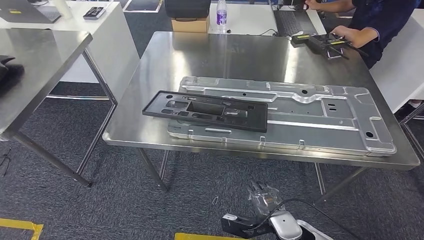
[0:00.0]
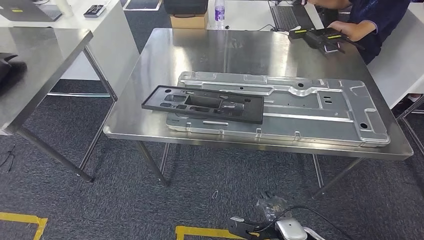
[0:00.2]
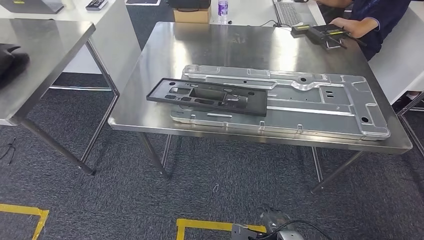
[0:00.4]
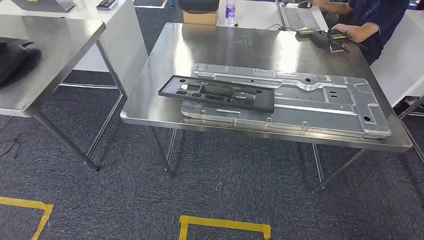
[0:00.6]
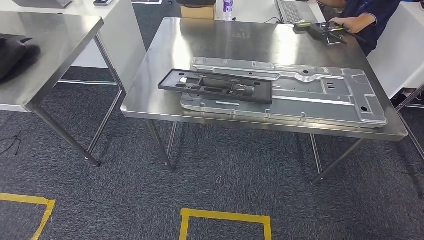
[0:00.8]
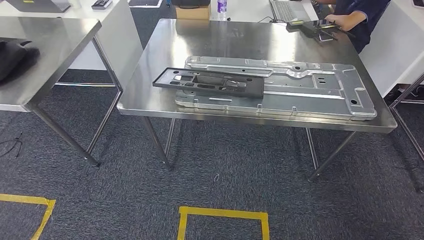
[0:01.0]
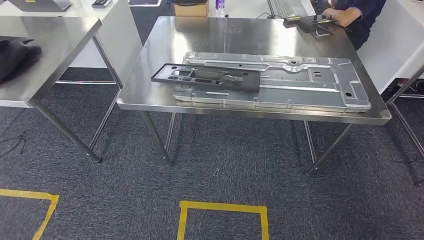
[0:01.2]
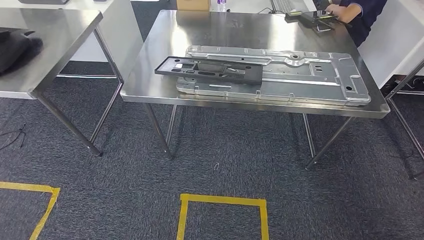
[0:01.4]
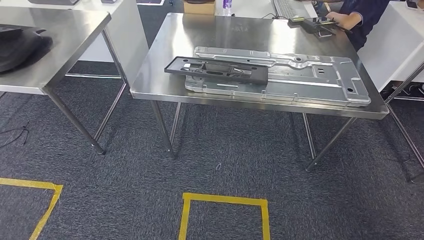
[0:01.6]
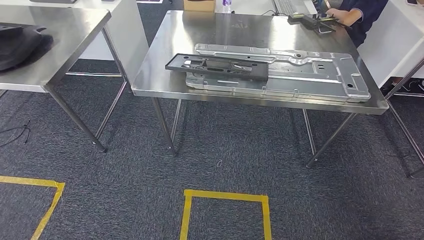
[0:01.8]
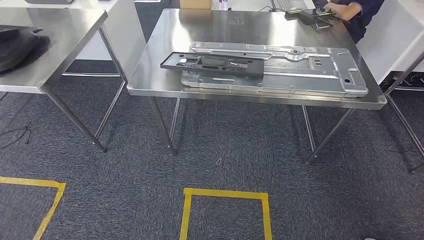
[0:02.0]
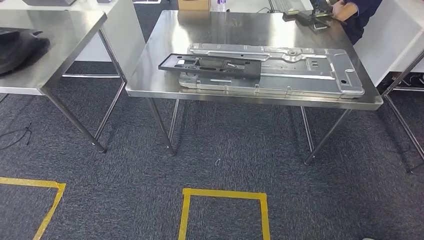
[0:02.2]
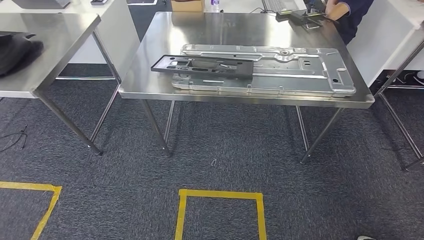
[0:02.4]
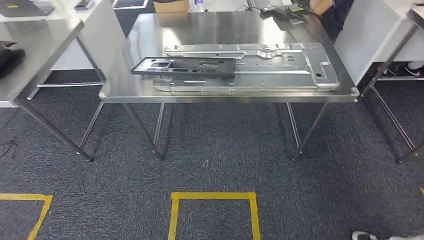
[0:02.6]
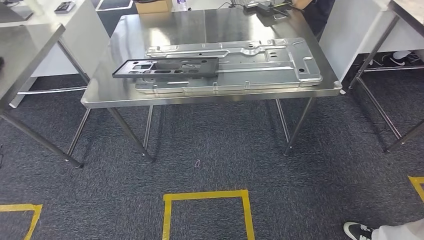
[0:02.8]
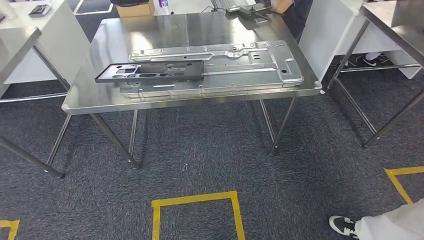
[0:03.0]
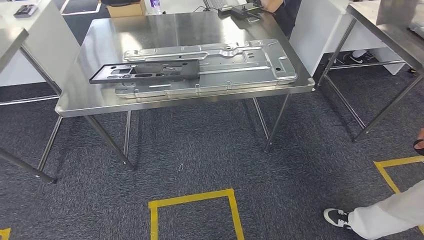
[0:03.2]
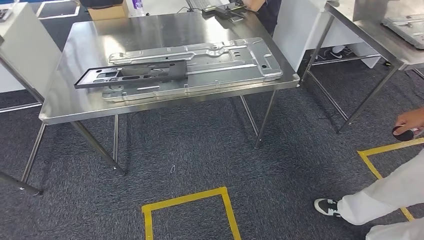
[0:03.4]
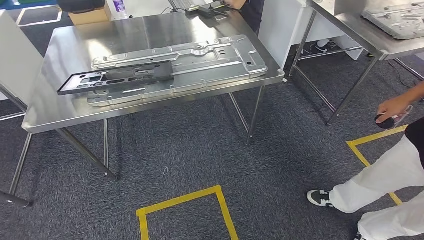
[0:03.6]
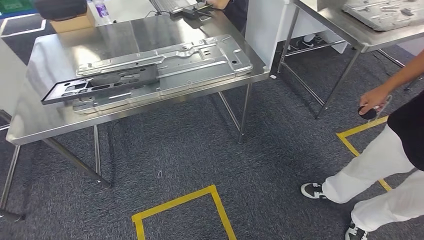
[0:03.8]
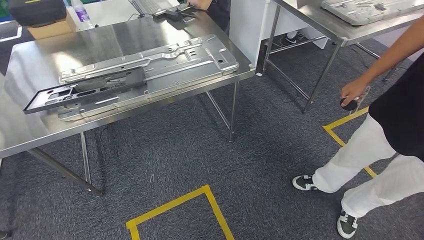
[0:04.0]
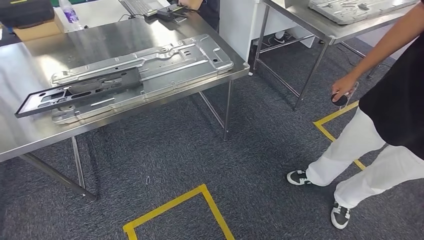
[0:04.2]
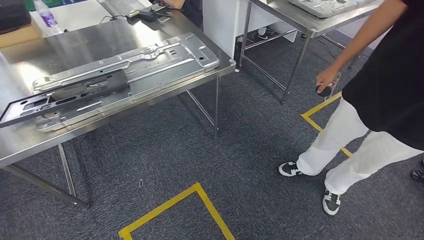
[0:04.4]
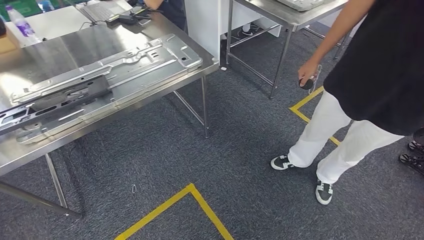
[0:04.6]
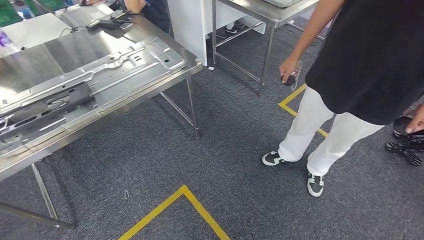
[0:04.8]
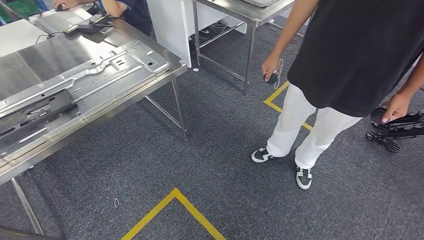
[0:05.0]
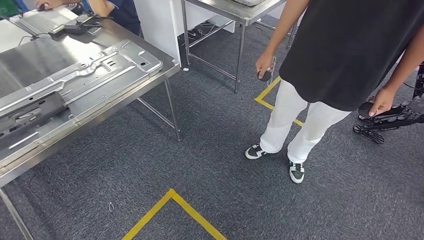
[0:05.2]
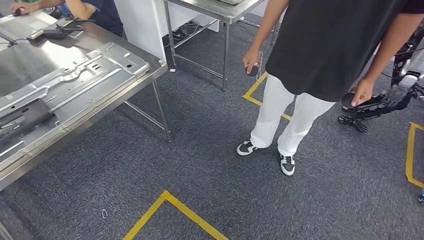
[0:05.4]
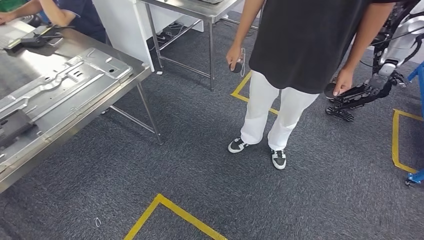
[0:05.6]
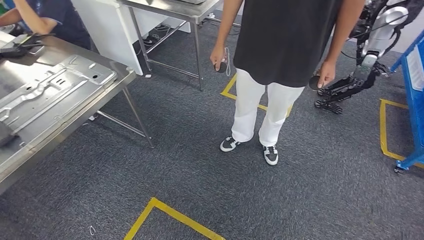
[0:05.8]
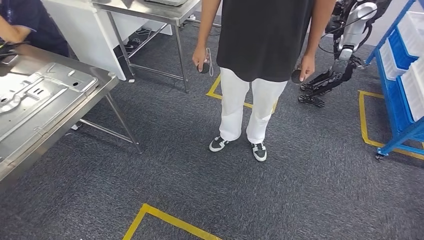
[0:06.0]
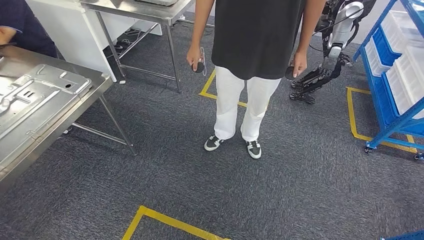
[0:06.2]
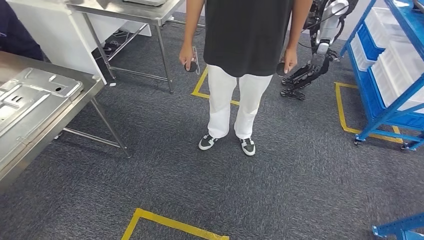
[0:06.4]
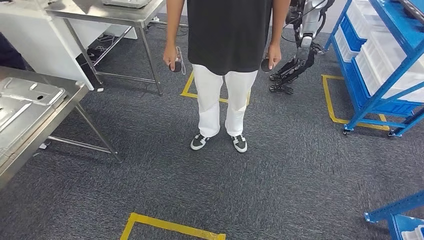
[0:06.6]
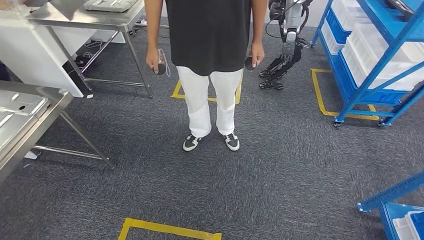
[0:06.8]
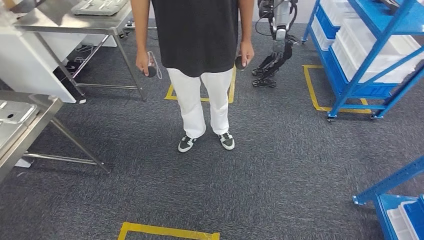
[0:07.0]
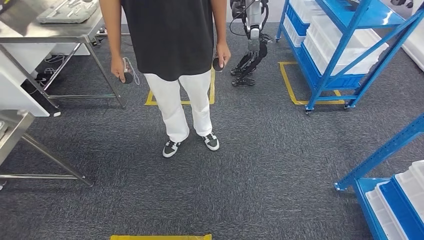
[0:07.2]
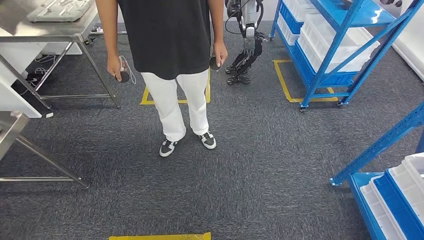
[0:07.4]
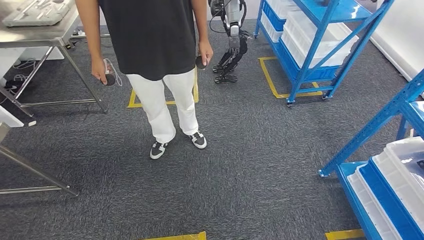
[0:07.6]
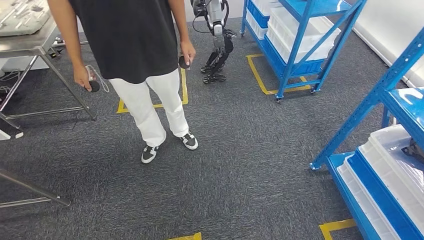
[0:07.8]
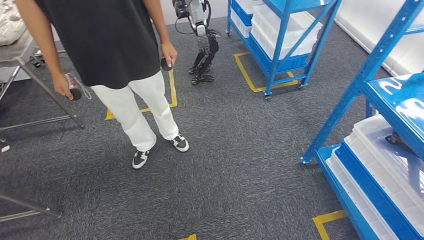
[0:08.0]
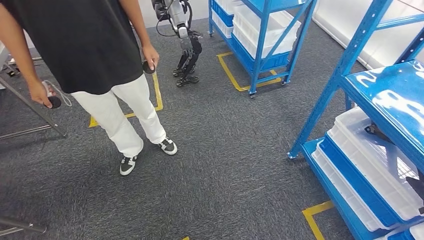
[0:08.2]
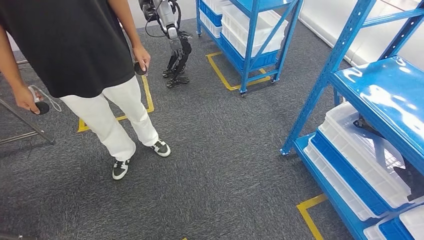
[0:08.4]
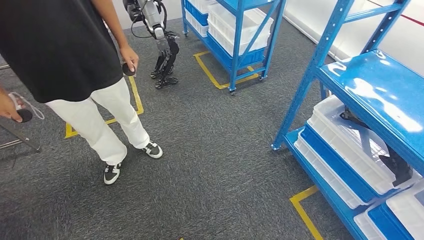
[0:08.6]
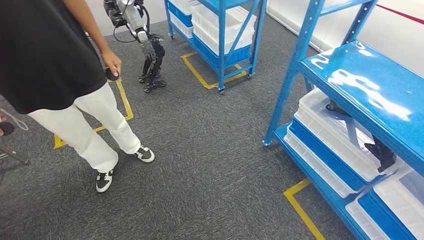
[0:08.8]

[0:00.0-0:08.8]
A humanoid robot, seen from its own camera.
Step, 0:00.0 to 0:07.0: Move to the initial position of the shelf.
